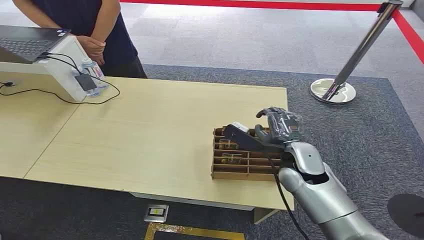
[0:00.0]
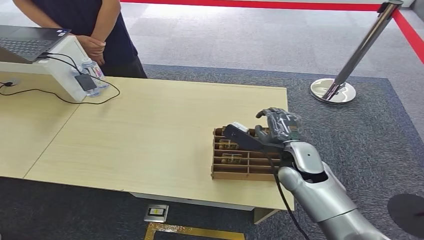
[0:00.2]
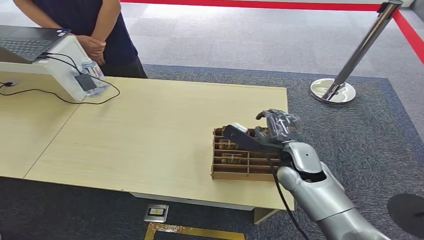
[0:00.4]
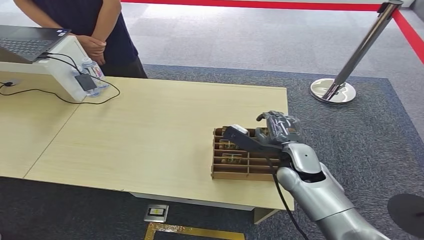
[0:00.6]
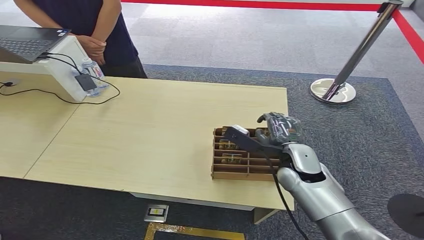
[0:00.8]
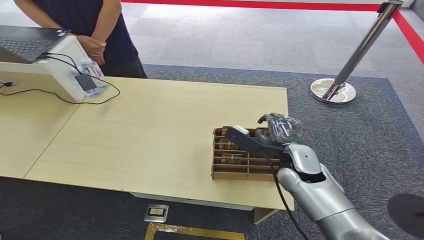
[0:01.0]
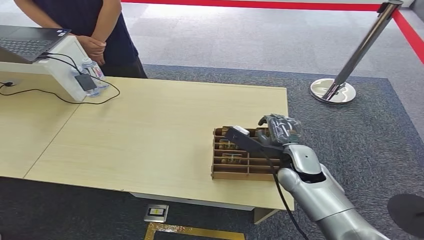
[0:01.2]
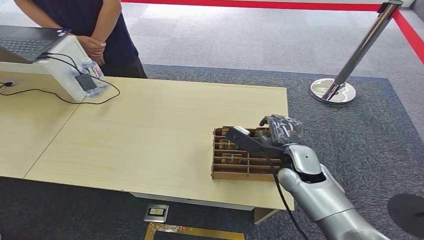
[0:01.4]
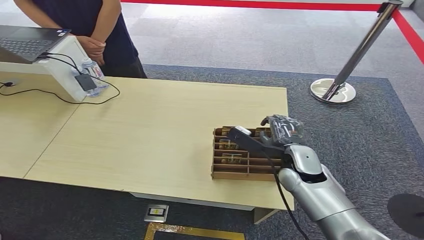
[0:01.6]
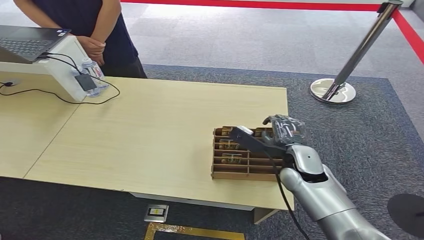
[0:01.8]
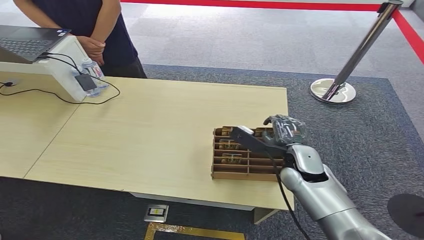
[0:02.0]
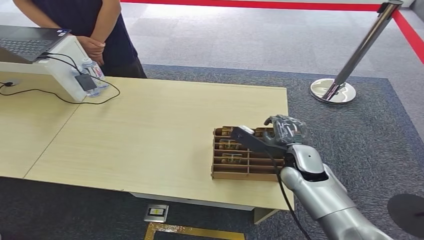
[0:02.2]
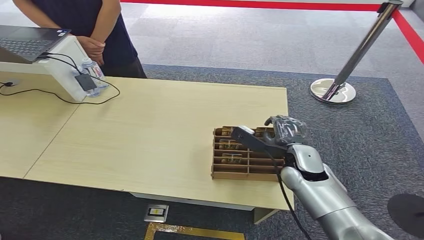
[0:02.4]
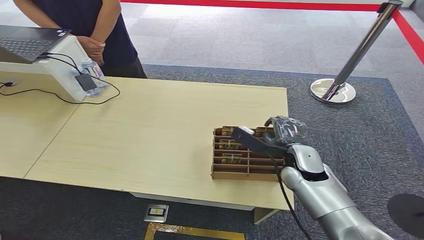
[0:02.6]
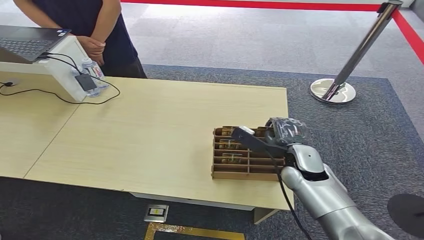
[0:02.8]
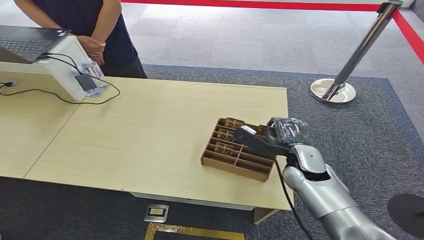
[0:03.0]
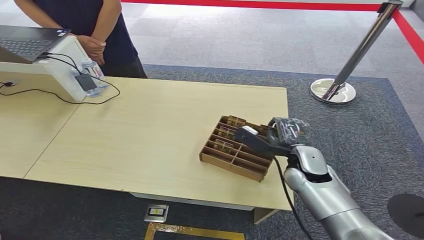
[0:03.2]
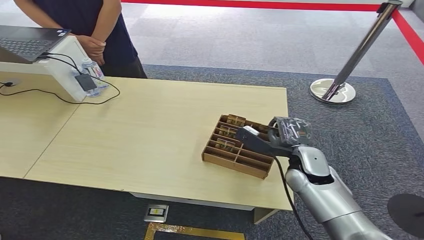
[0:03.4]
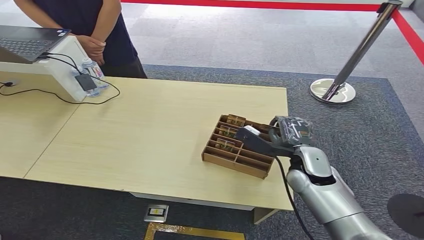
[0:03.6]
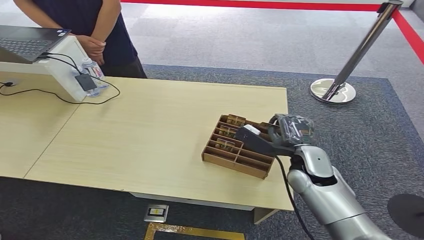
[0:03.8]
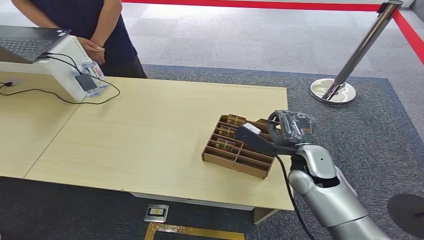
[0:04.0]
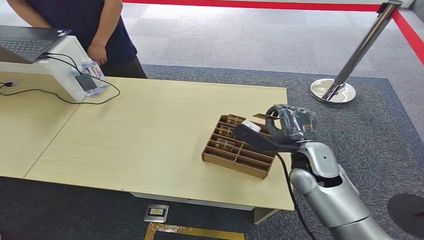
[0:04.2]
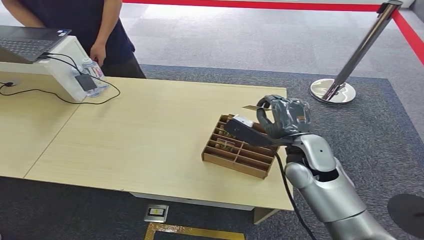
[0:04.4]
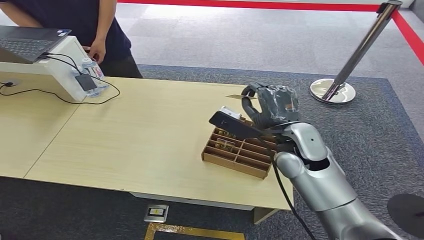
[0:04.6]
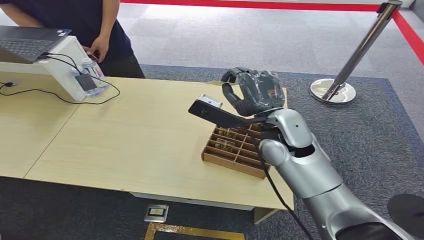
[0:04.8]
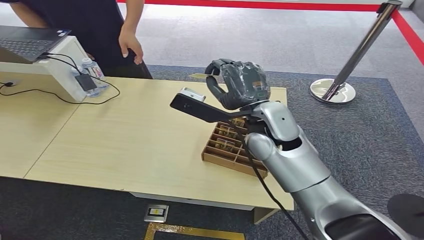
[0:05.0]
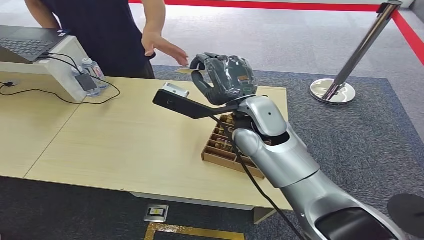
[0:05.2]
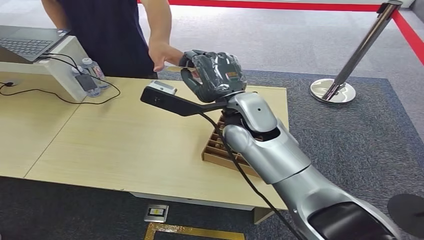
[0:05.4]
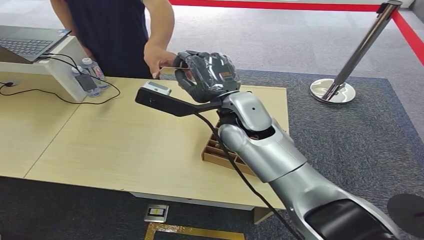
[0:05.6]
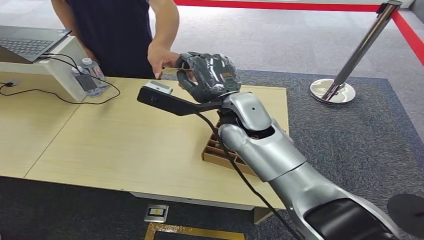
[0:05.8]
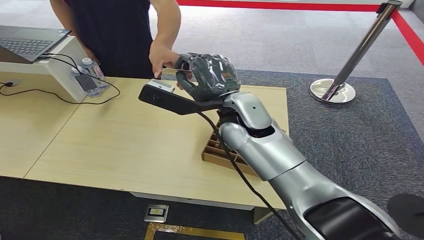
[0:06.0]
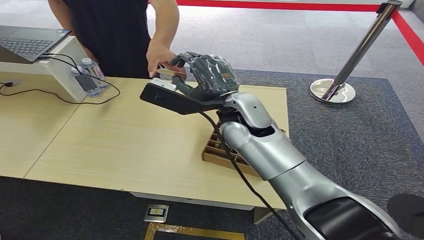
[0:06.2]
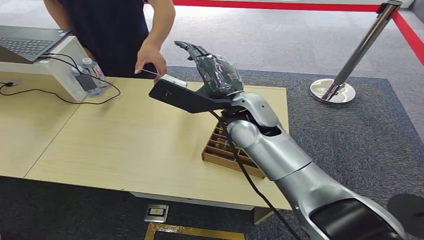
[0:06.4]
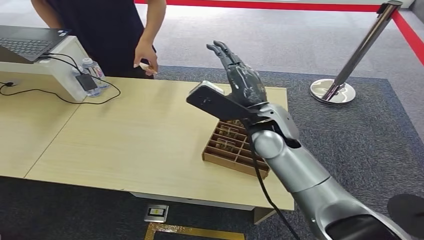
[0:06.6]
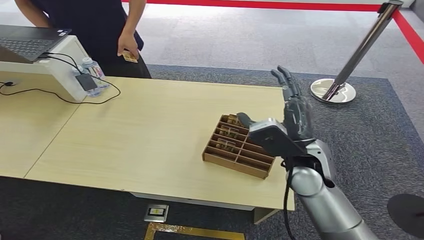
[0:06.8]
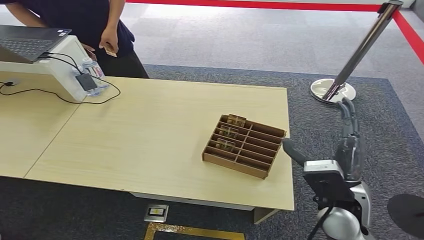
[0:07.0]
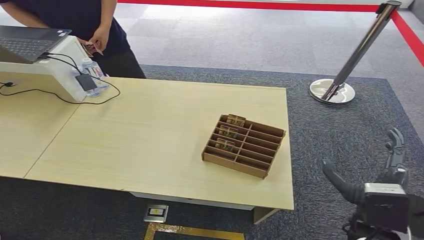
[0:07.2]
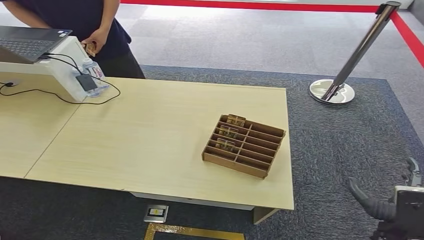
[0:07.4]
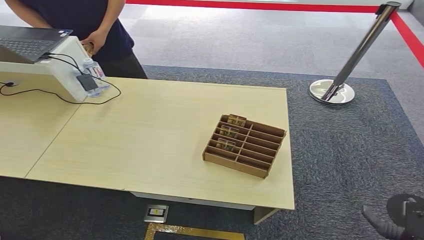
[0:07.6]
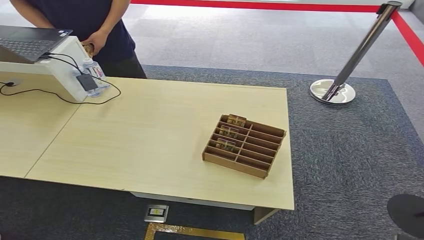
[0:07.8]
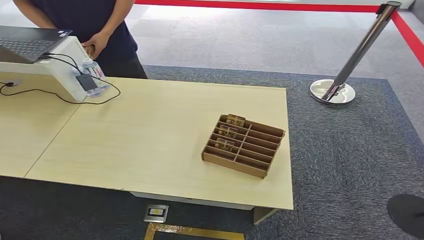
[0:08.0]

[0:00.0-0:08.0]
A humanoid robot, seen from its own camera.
Task of the whole recording: Pick up the card and hand it over to the target person.
Step, 0:00.0 to 0:04.8: Pick up the key card from the card box.
Step, 0:05.0 to 0:07.8: Hand the key card to the target.
0:01.6 to 0:03.2: Both hands stay put.
0:03.2 to 0:04.8: The right hand is displaced upward and to the left by some 20 cm.
